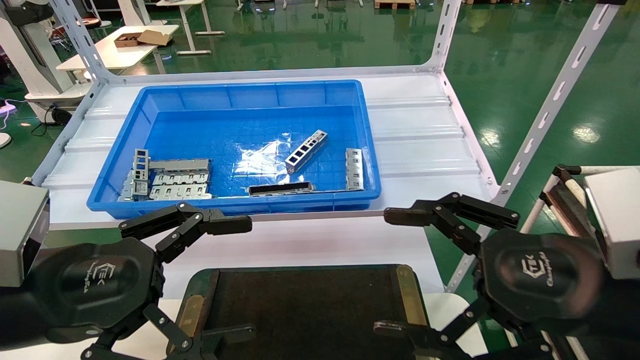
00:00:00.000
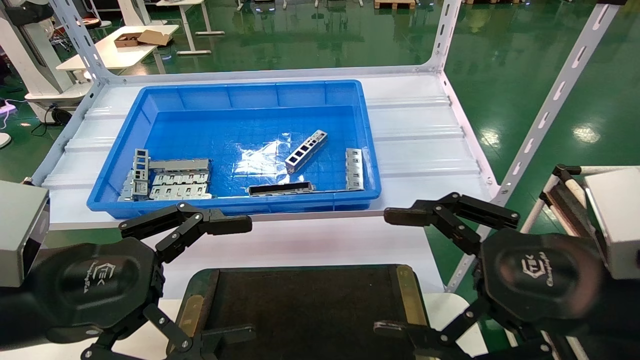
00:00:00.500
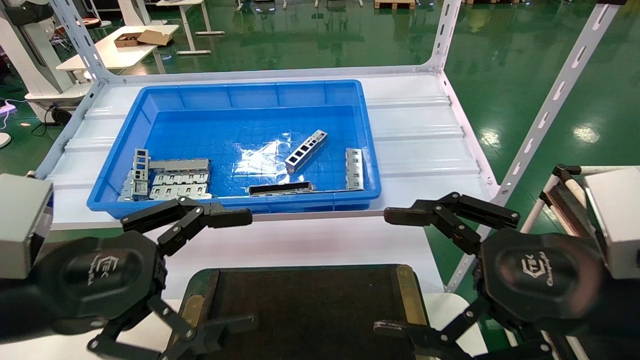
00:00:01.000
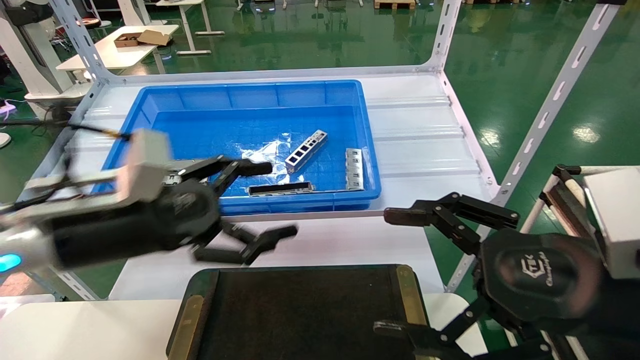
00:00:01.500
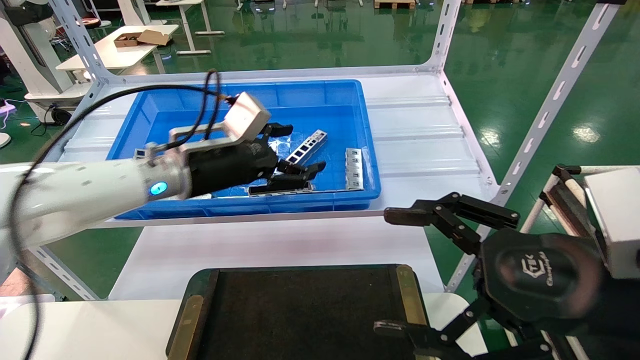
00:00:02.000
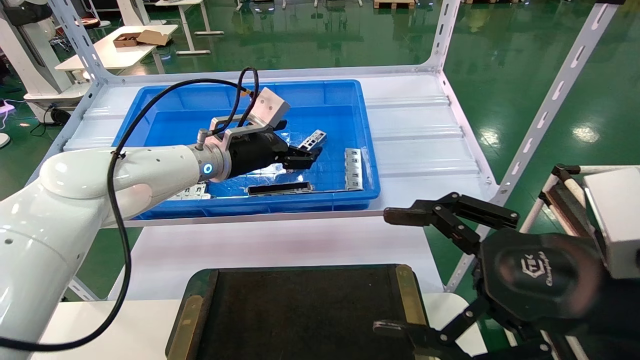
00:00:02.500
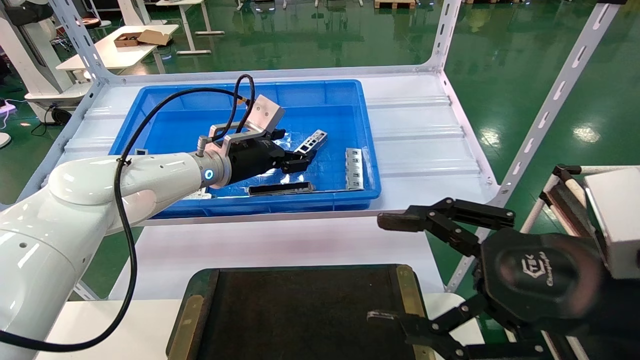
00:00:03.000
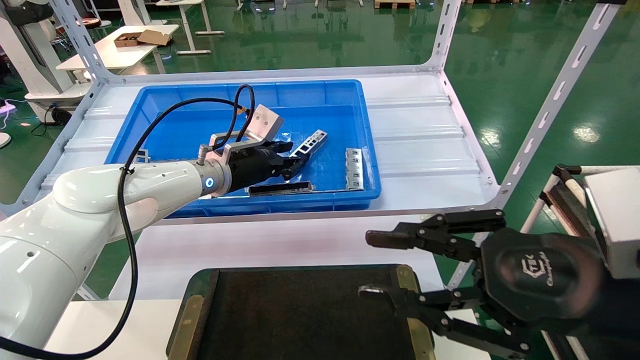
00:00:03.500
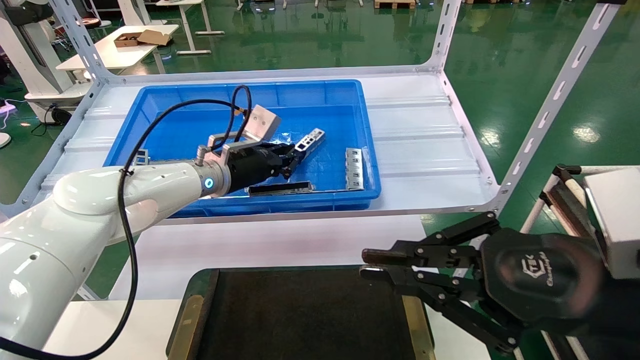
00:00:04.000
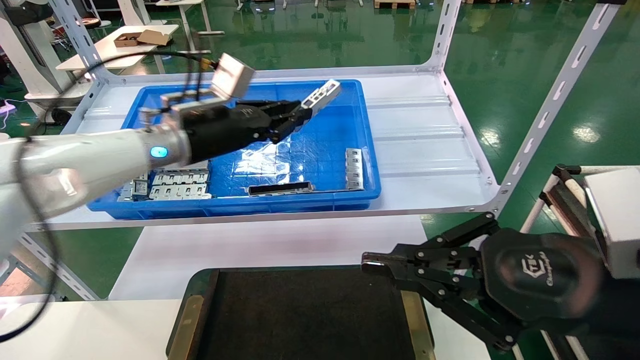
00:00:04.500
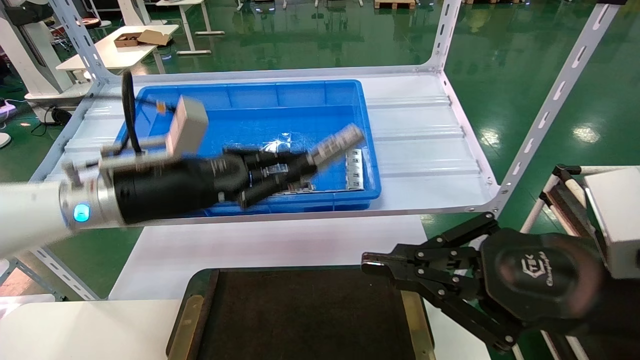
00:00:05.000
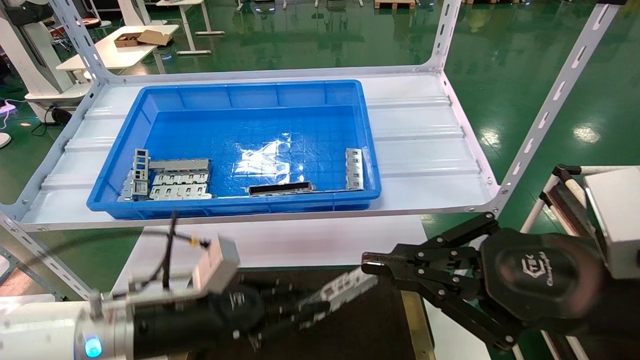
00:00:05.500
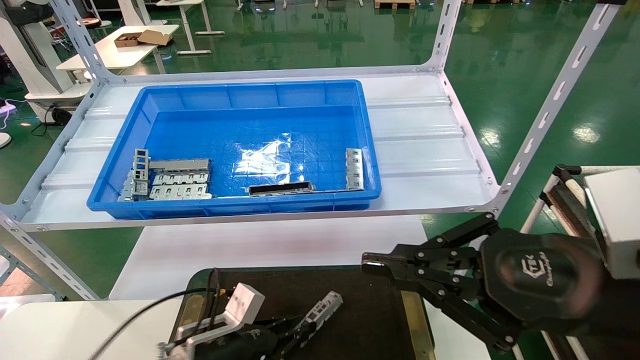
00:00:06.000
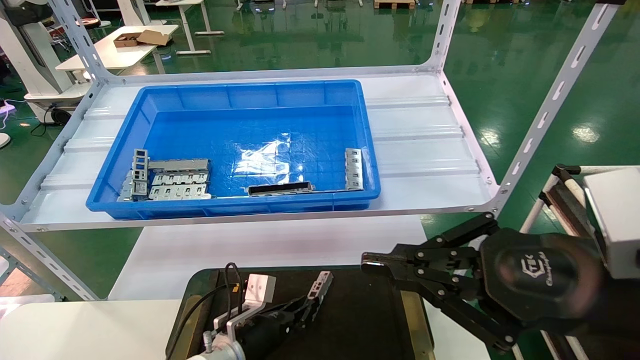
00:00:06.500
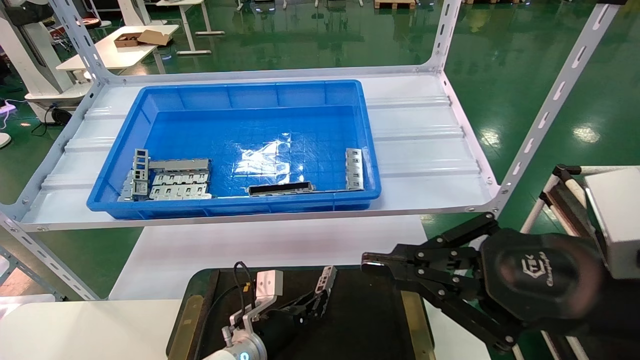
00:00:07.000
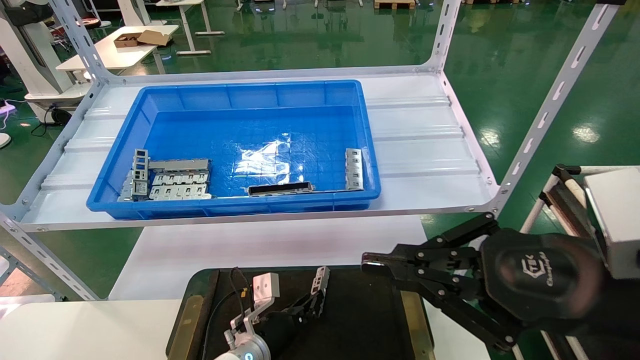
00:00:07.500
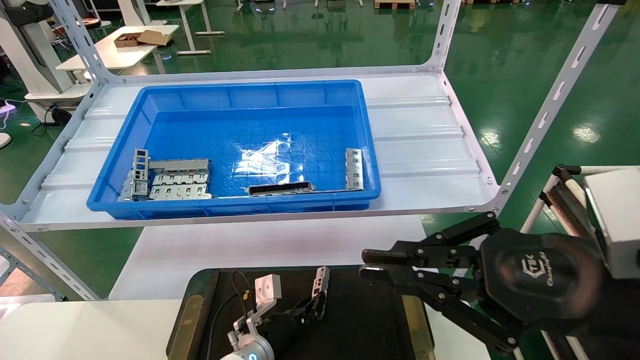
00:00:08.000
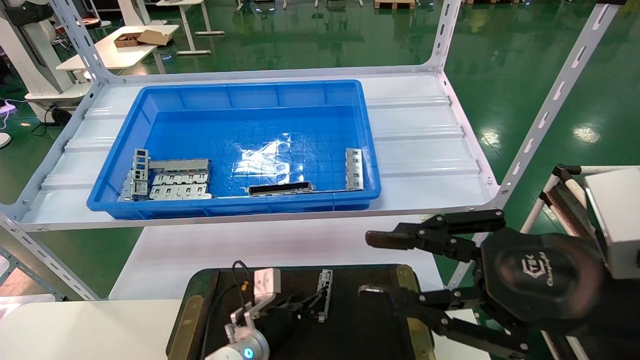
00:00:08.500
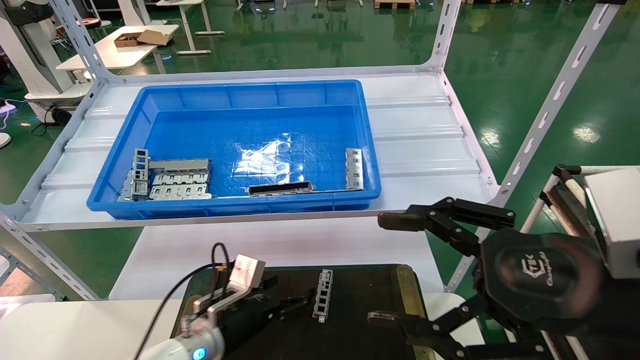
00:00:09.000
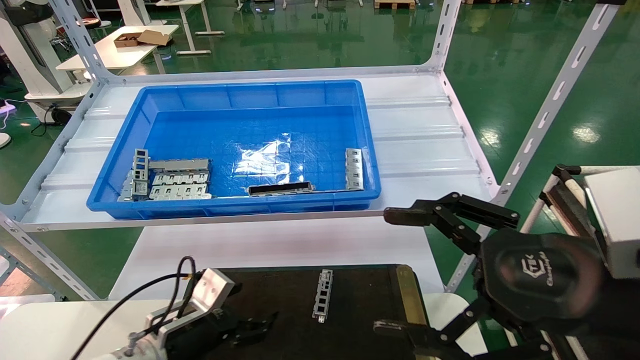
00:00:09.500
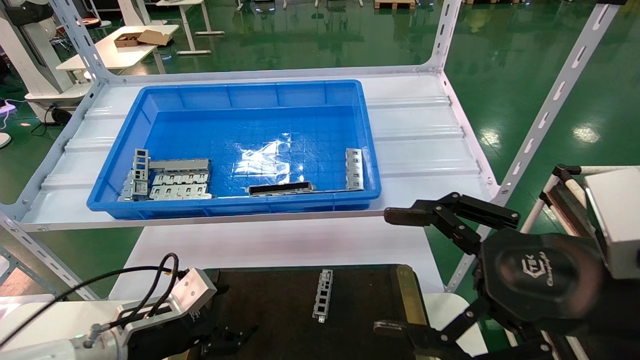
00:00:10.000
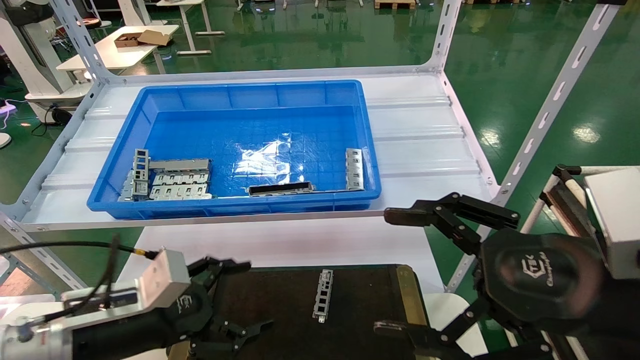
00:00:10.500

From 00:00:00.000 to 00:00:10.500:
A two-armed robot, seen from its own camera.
Task of the whole recording: Grasp the part with one hand and place it on the black container.
Step, from 00:00:01.000 to 00:00:04.000: Pick up the front USB bracket from the feeding area.
Step, from 00:00:04.500 to 00:00:08.000: Place the front USB bracket into the box.
From 00:00:00.000 to 00:00:02.000: The left gripper is displaced forward by roughly 25 cm.
From 00:00:02.000 to 00:00:04.000: The left gripper heads forward, covering about 5 cm, and closes its fingers, while the right gripper closes up.
From 00:00:04.000 to 00:00:06.500: The left gripper goes approximately 30 cm downward.
From 00:00:06.500 to 00:00:08.500: The grippers move only a little.
From 00:00:08.500 to 00:00:10.500: The right gripper opens up. The left gripper goes some 25 cm to the left, upward and backward, and opens.

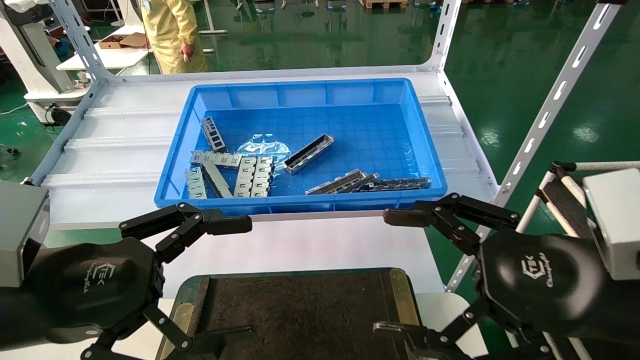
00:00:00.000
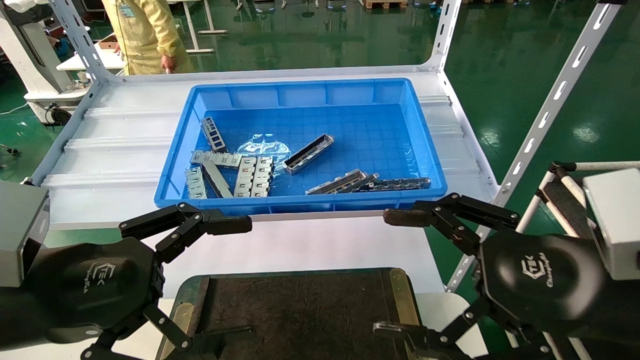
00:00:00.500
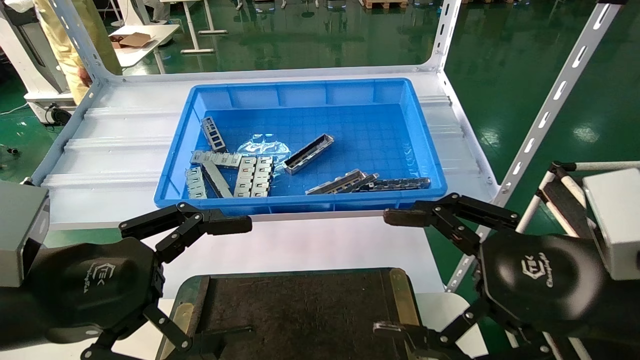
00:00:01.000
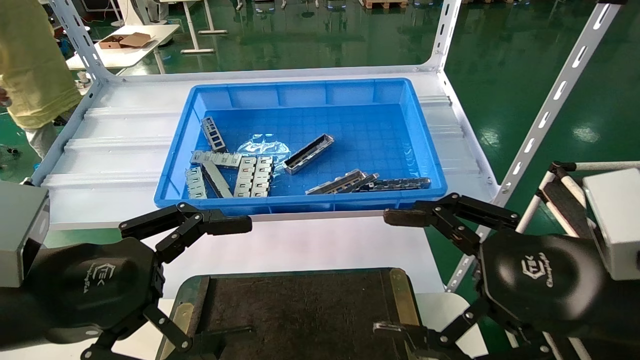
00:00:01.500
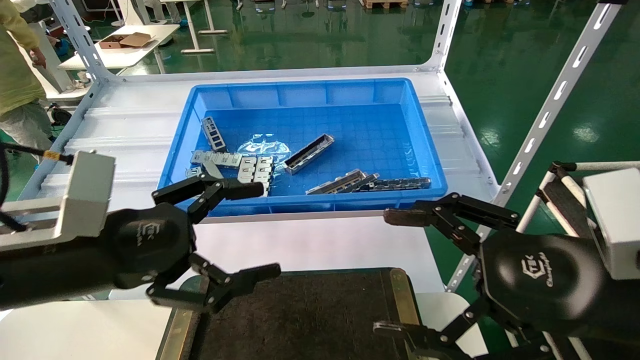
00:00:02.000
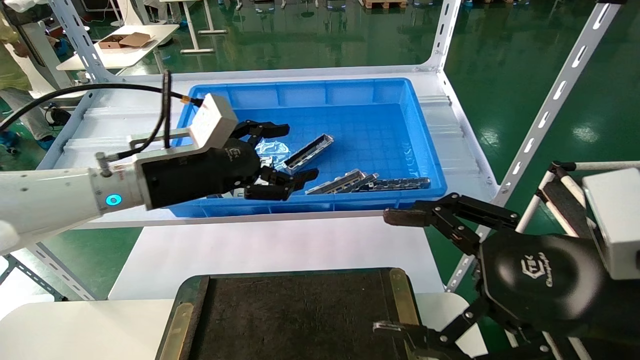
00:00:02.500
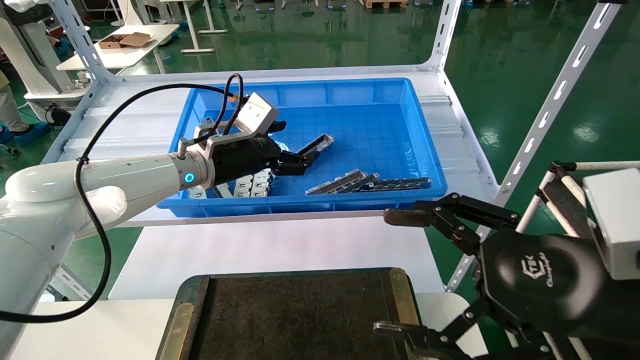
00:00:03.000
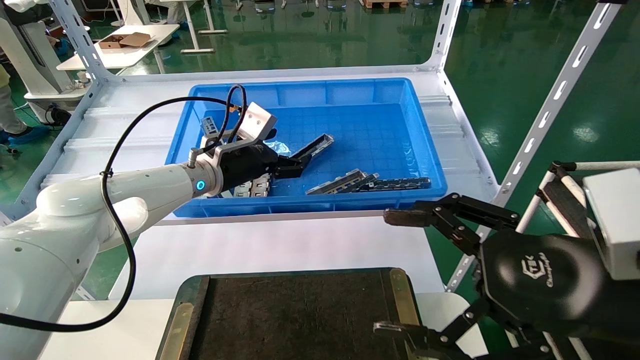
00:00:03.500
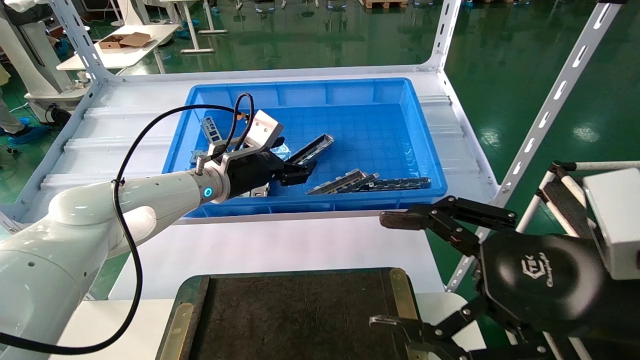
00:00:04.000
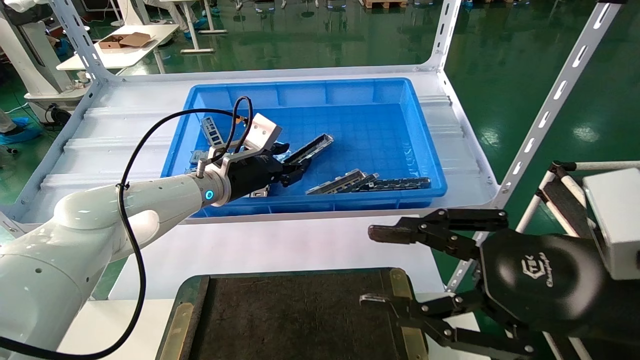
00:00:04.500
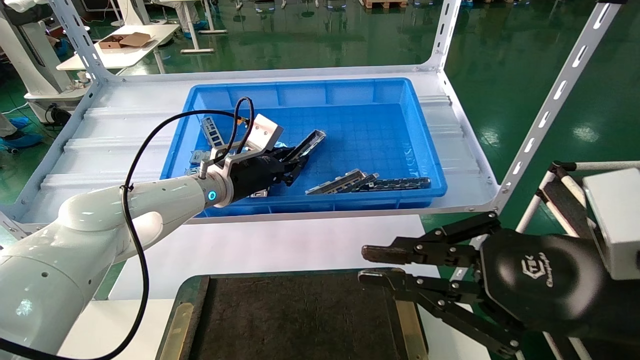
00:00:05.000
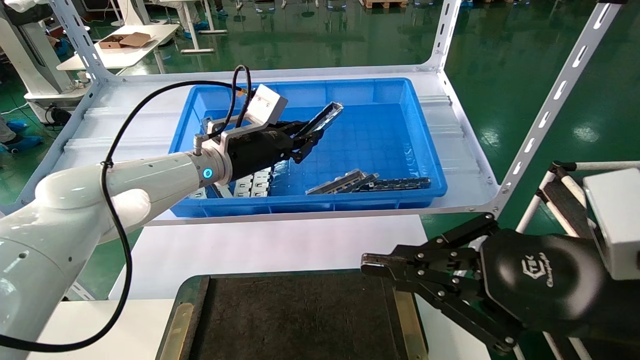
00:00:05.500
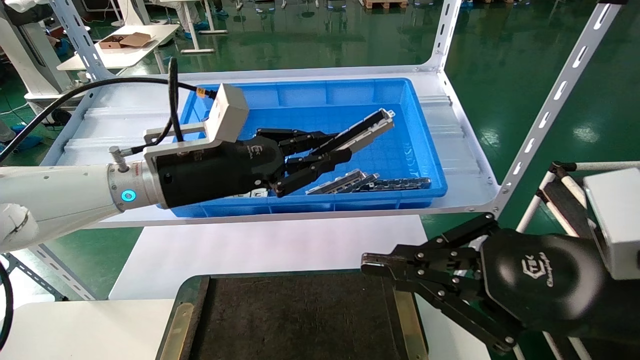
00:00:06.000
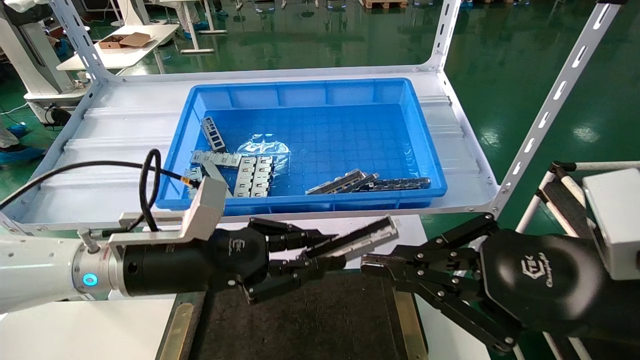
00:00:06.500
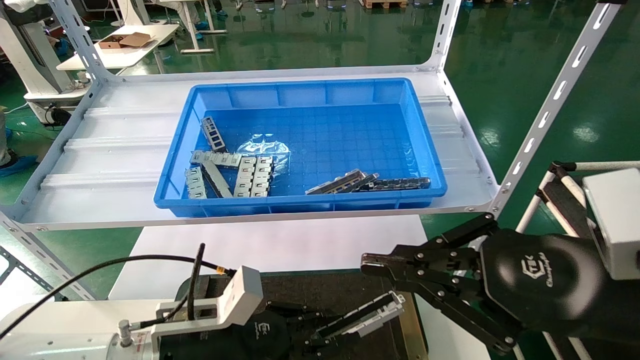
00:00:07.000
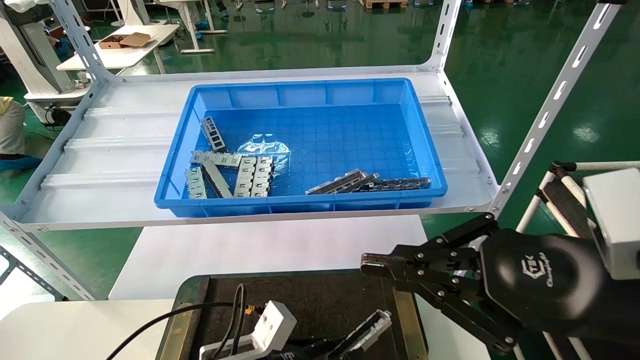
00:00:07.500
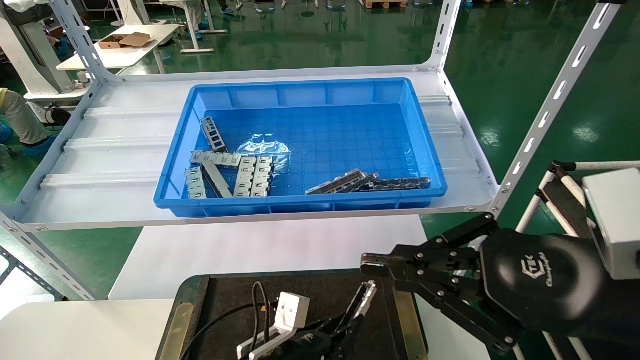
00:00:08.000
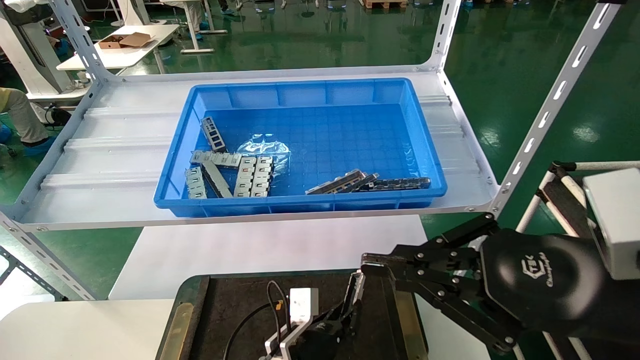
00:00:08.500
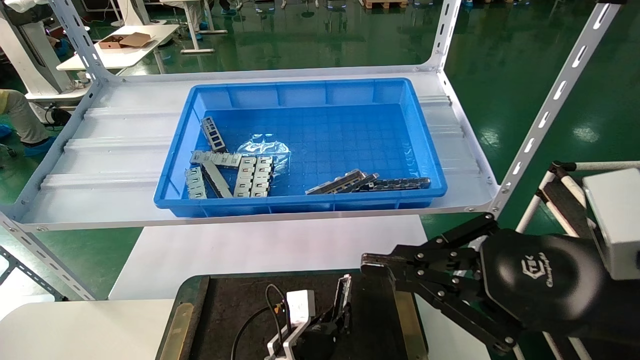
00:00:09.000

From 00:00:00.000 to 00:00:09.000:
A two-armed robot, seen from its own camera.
Task of the whole recording: Grasp the part with one hand and place it on the black container.
Step, from 00:00:02.000 to 00:00:05.500: Pick up the front USB bracket from the feeding area.
From 00:00:00.000 to 00:00:02.000: The left gripper travels forward by approximately 5 cm.
From 00:00:02.000 to 00:00:04.500: The left gripper heads forward, covering approximately 25 cm, and closes up; the right gripper closes up.
From 00:00:04.500 to 00:00:07.000: The left gripper goes some 25 cm backward and downward, and closes; the right gripper closes up.
From 00:00:07.000 to 00:00:09.000: The left gripper heads downward, to the right and forward, covering about 20 cm.
